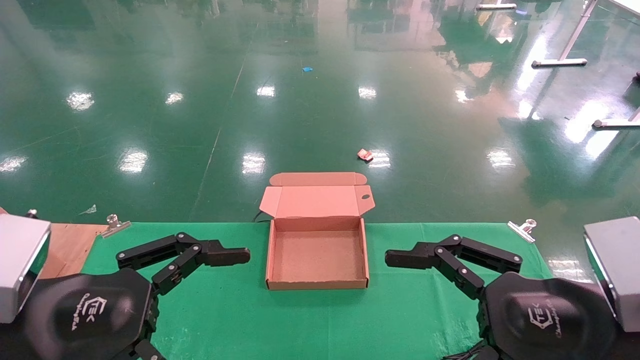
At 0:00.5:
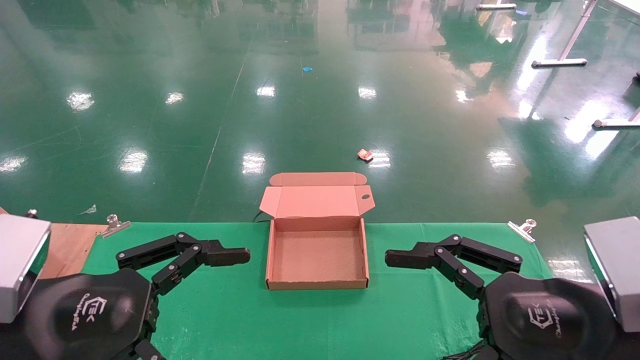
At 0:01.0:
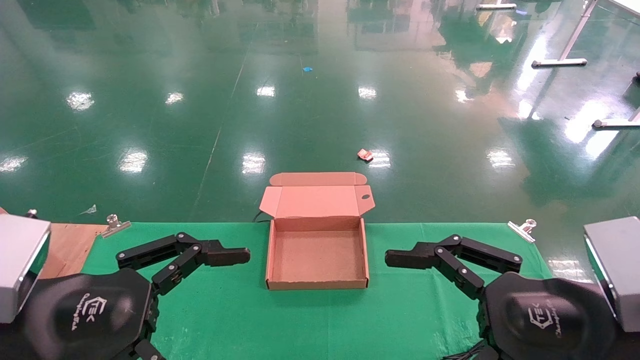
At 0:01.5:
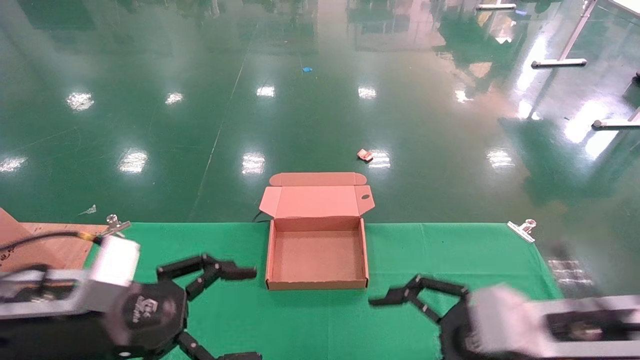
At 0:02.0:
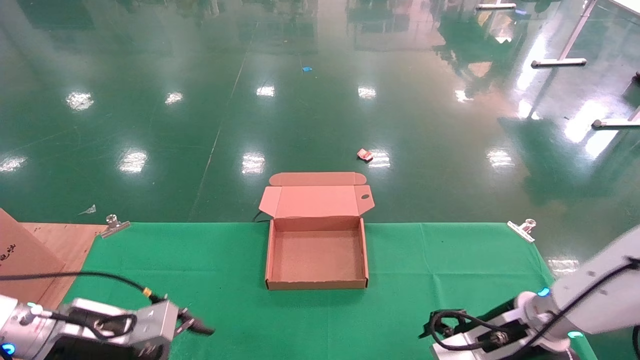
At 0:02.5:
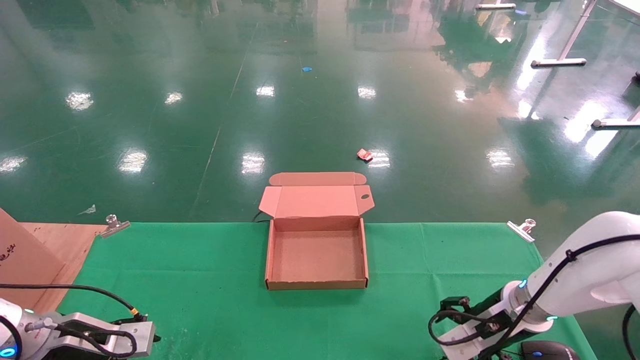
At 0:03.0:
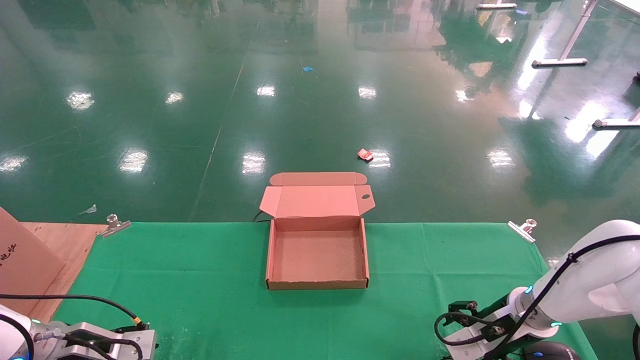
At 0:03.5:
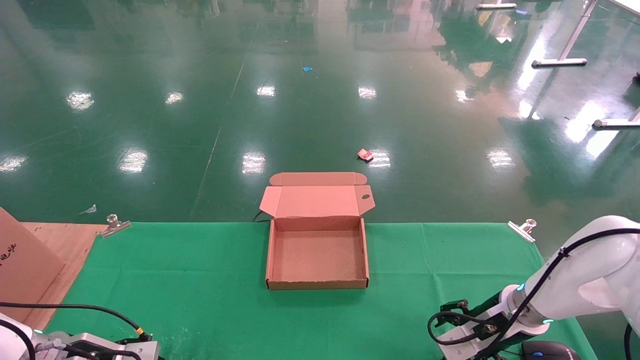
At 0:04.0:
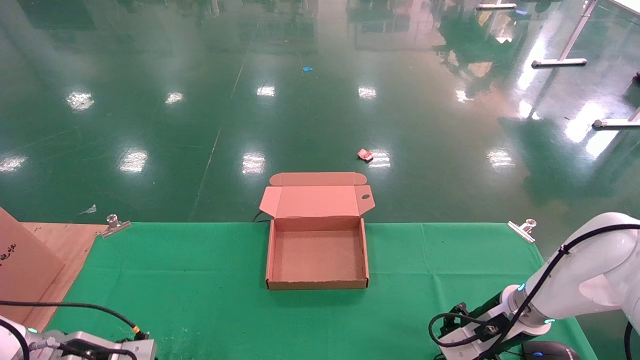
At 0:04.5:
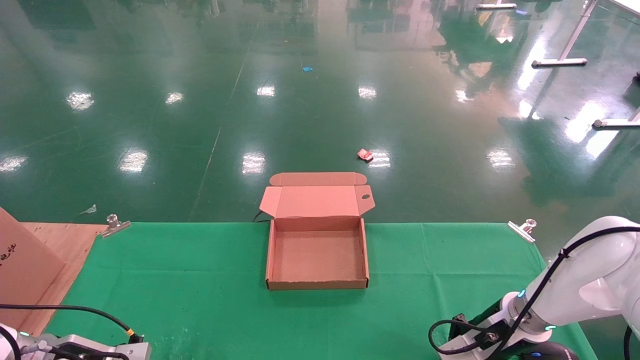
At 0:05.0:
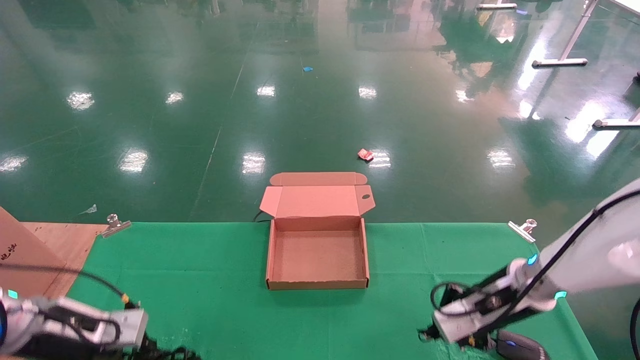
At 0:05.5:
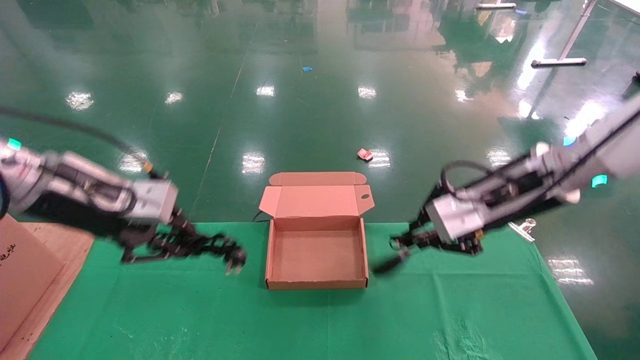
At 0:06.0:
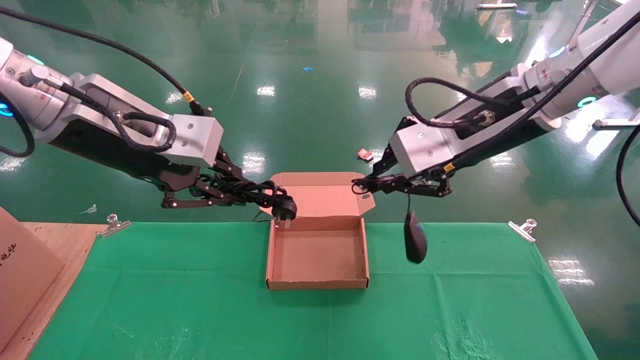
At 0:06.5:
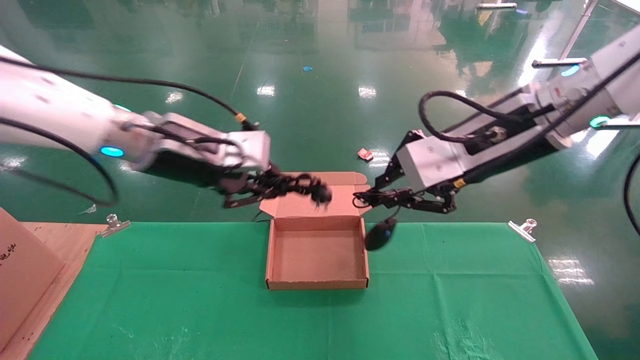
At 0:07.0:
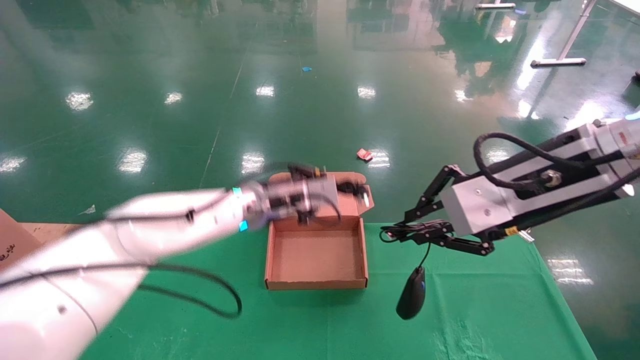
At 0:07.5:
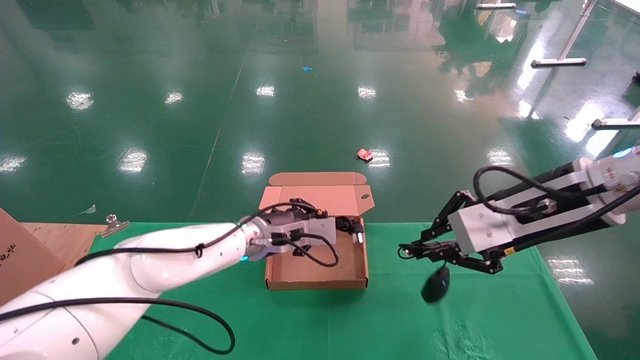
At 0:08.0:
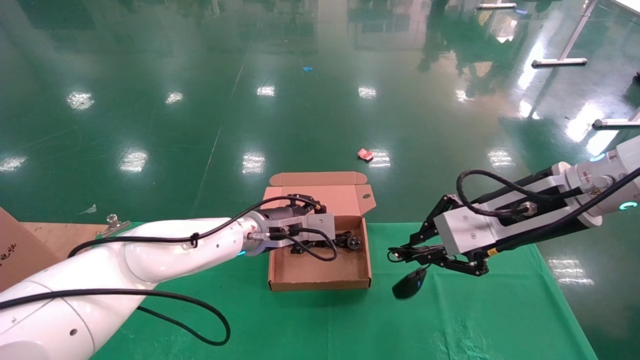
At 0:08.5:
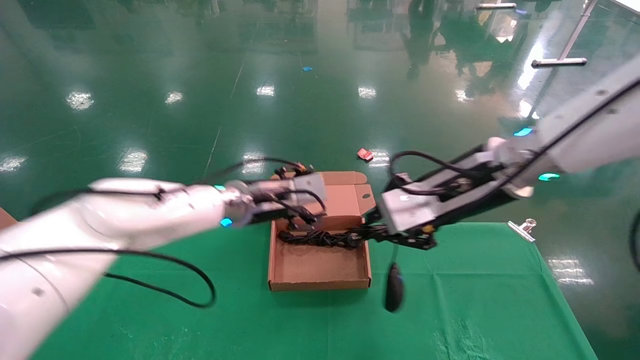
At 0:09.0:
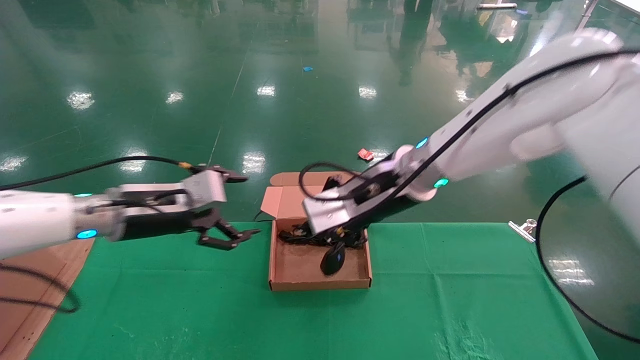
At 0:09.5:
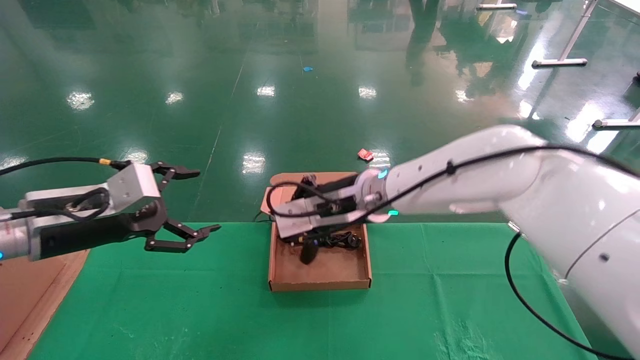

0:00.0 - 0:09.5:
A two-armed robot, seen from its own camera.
Step, 0:02.0 - 0:05.5: Grab and lift both the mouse and power cord from the accessory packaging area at the same time.
0:00.0 - 0:02.0: The right gripper heads forward and downward, covering some 20 cm. Meanwhile the left gripper shifts some 20 cm forward, downward and to the left.
0:02.0 - 0:04.0: The left gripper heads downward and to the left, covering about 10 cm, and closes. The right gripper travels forward by approximately 5 cm, and closes its fingers.
0:04.0 - 0:05.5: Both grippers travel together upward, approximately 25 cm. The right gripper closes its fingers. Meanwhile the left gripper closes up.
0:05.5 - 0:07.5: The left gripper is displaced to the right, forward and downward by roughly 25 cm.
0:07.5 - 0:09.5: The right gripper travels to the left and forward by approximately 25 cm. The left gripper moves to the left and backward, approximately 25 cm, and opens its fingers.

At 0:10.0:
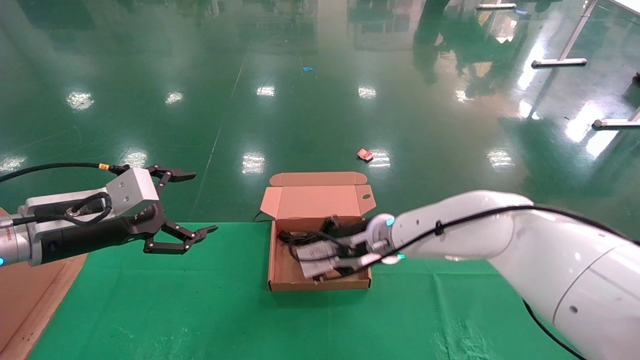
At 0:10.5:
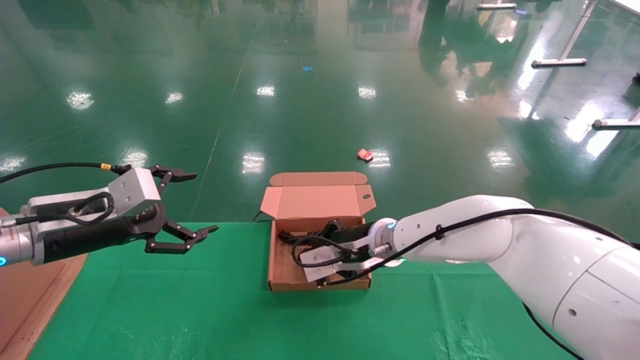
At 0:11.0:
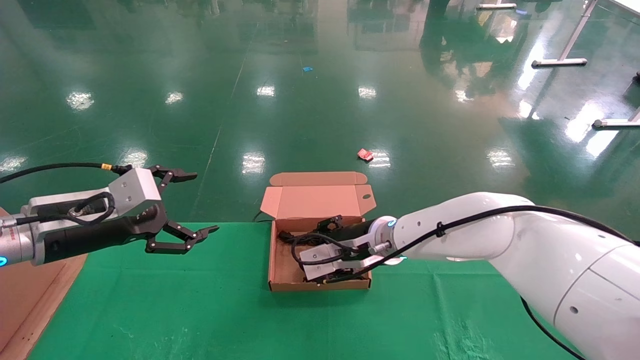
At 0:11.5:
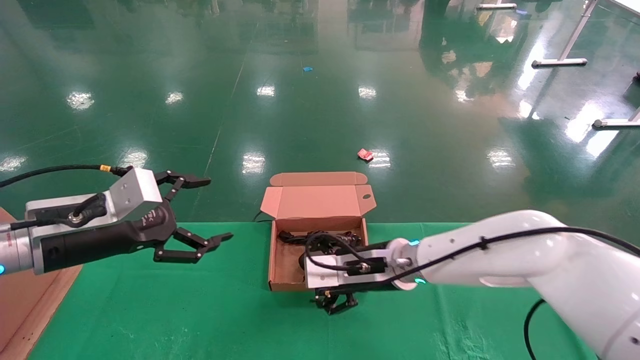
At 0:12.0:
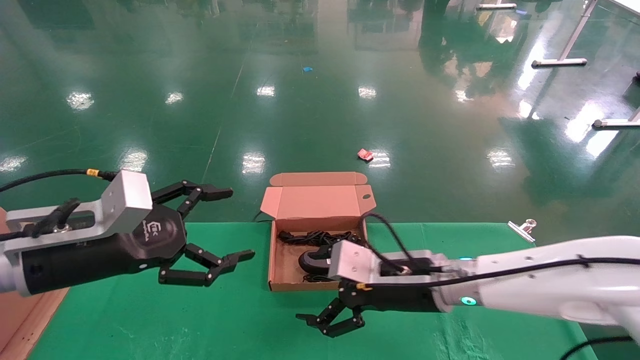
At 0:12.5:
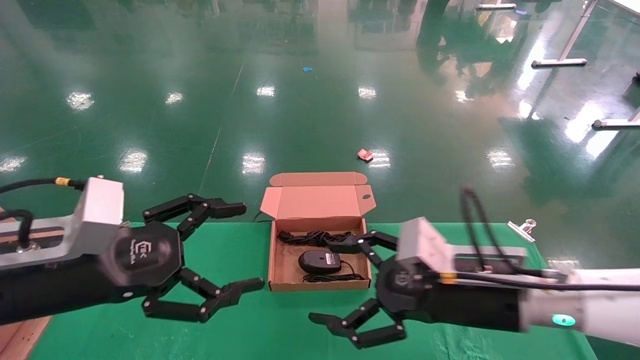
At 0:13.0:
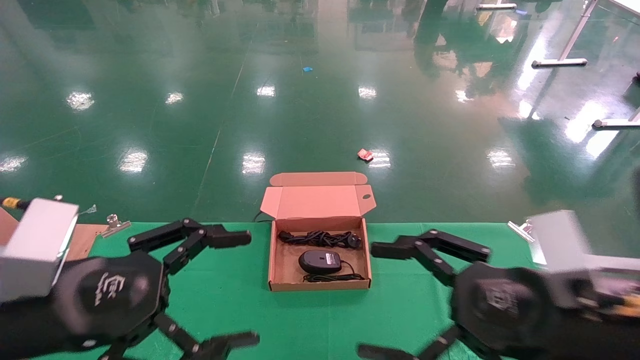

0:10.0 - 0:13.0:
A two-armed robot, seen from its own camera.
0:10.0 - 0:11.5: The right gripper moves about 5 cm, and opens its fingers.
0:11.5 - 0:13.0: The right gripper shifts approximately 25 cm backward and to the right; the left gripper travels backward by roughly 10 cm.

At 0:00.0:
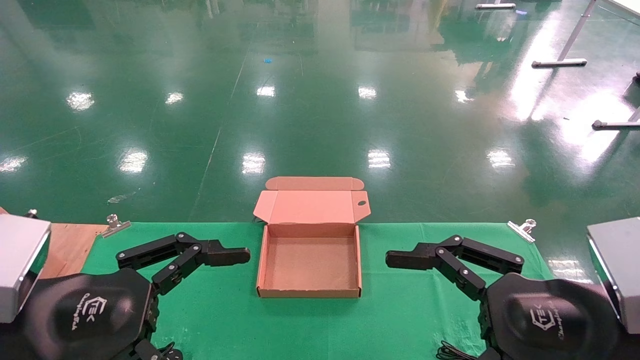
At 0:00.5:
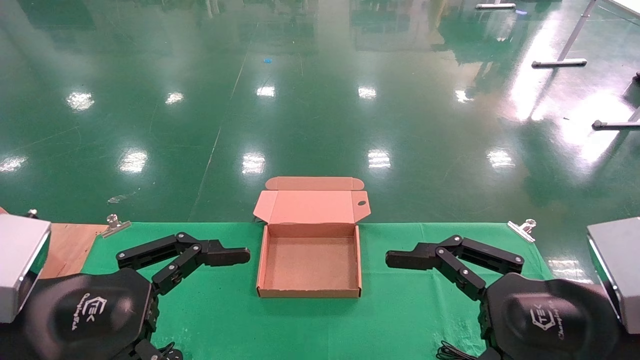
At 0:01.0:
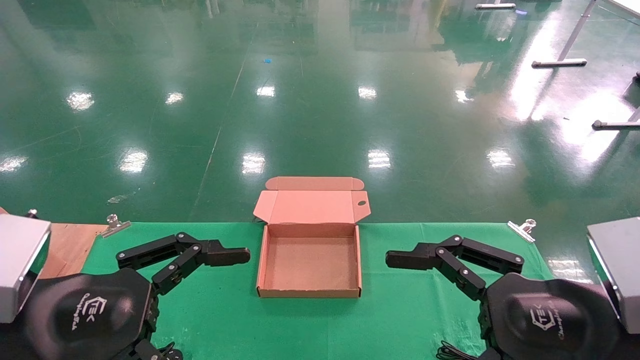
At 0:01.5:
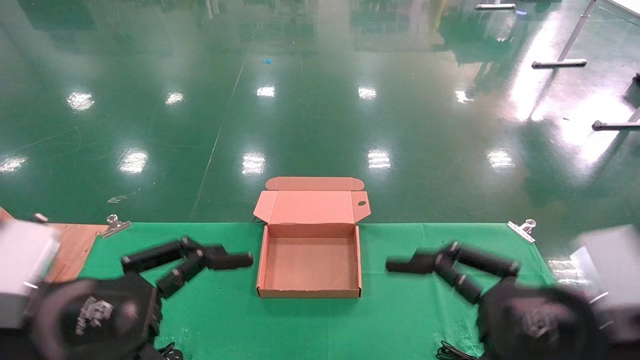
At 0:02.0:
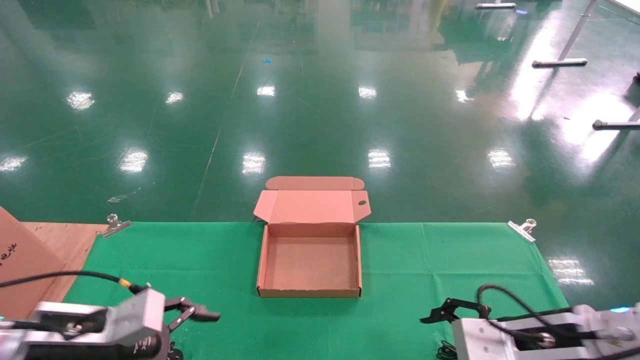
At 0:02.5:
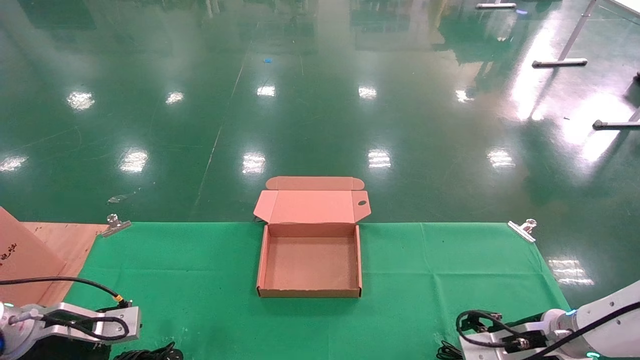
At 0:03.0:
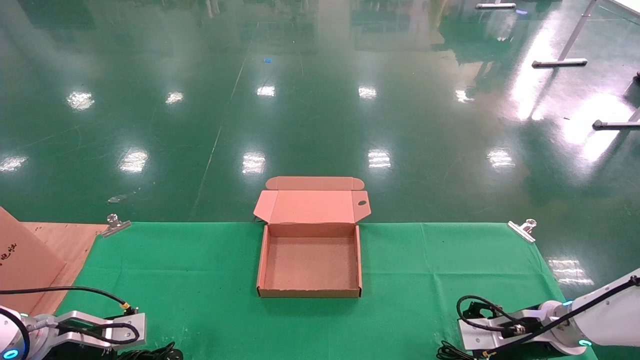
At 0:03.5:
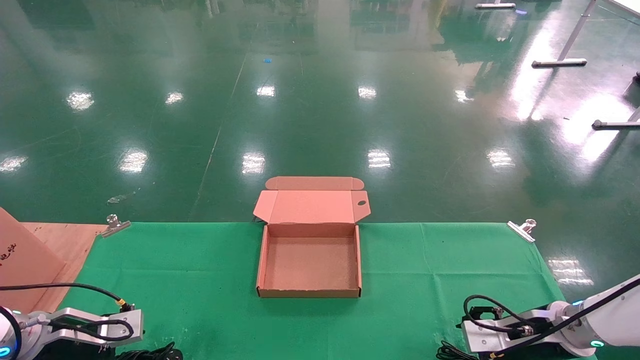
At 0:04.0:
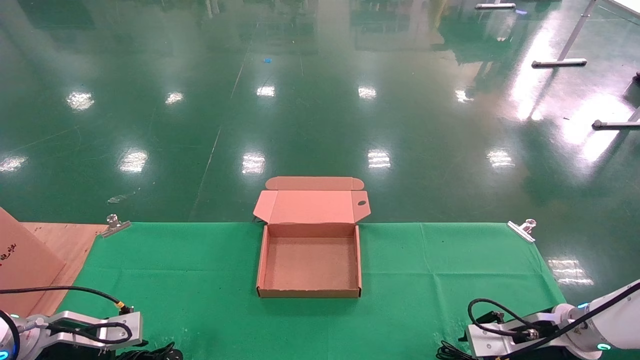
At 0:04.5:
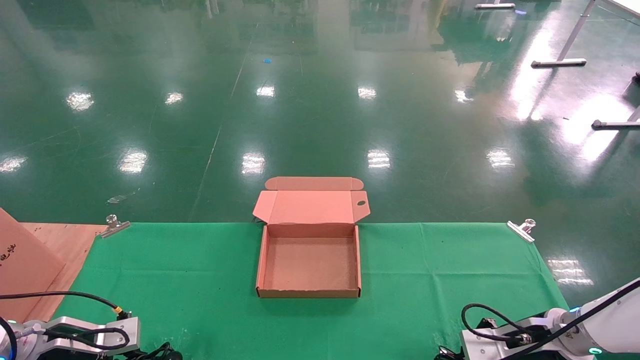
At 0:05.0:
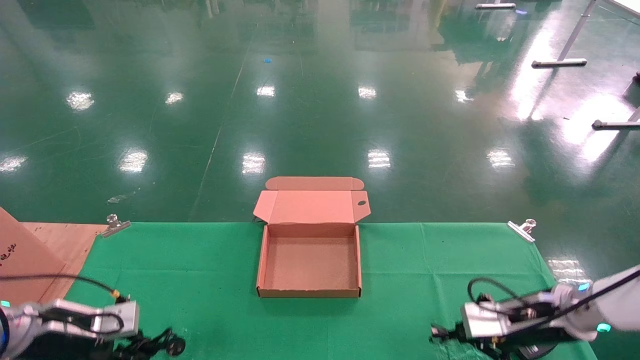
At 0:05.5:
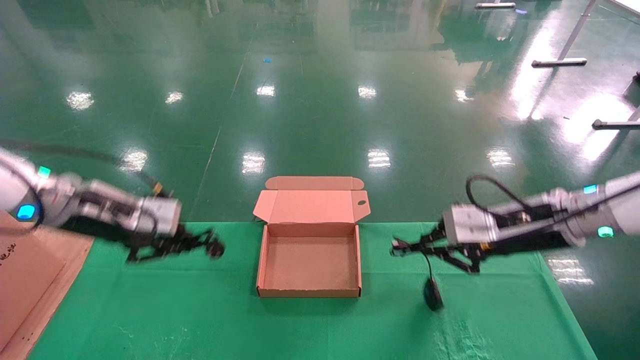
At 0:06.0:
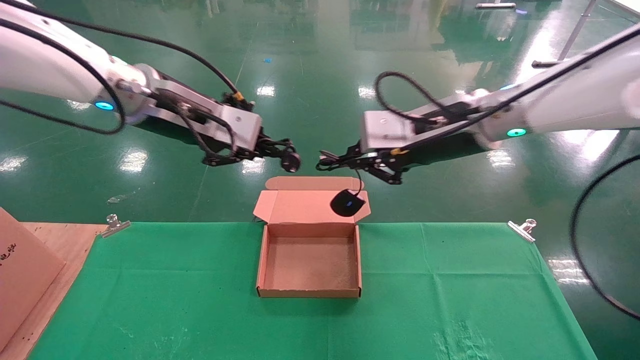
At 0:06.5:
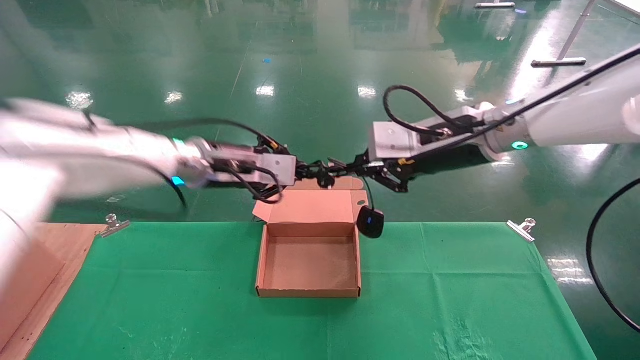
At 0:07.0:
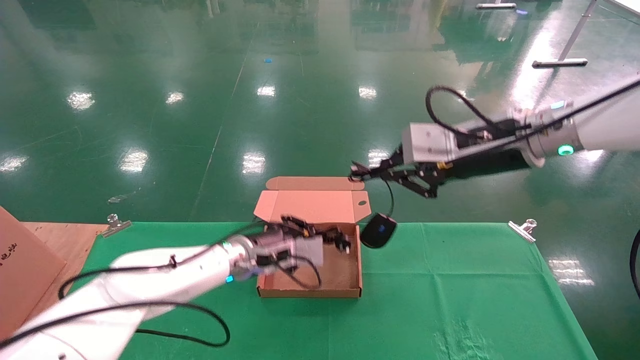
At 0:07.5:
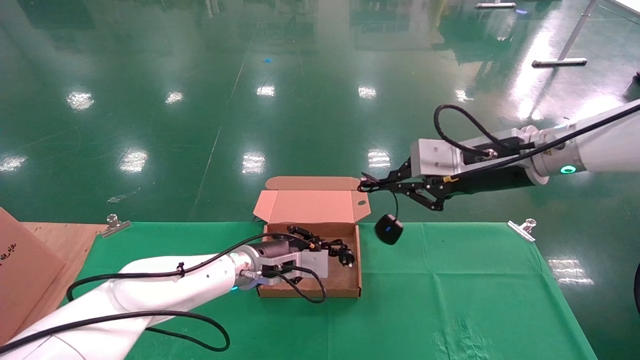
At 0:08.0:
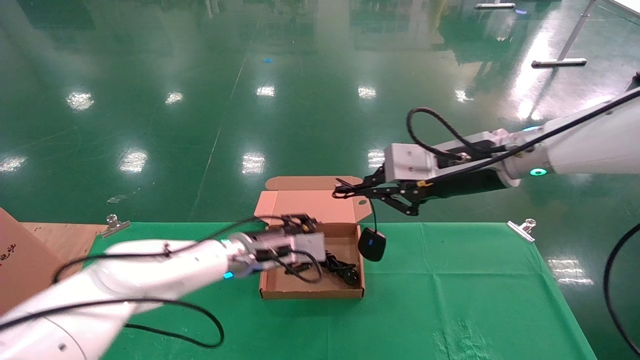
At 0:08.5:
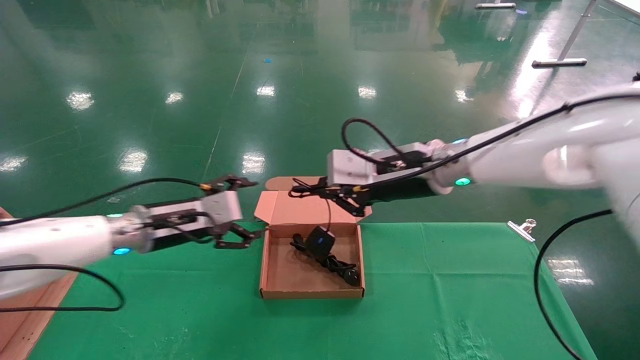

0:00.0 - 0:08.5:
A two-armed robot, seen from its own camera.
Step, 0:01.5 - 0:05.5: Grab and lift both the mouse and power cord from the accessory packaging area at the same time.
0:00.0 - 0:02.0: The two grippers go roughly 15 cm forward and downward.
0:02.0 - 0:04.0: The right gripper goes roughly 10 cm forward, downward and to the right, and closes up; the left gripper moves to the left, forward and downward, roughly 15 cm, and closes up.
0:04.0 - 0:06.5: The left gripper heads to the right and upward, covering approximately 35 cm, and closes; the right gripper goes approximately 35 cm upward and to the left, and closes its fingers.
0:06.5 - 0:08.5: The left gripper goes approximately 15 cm downward and to the left, and opens up. The right gripper travels to the left and downward by some 10 cm.
